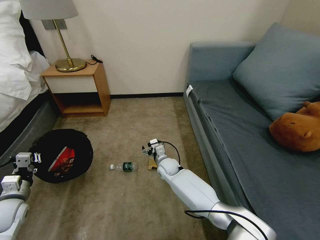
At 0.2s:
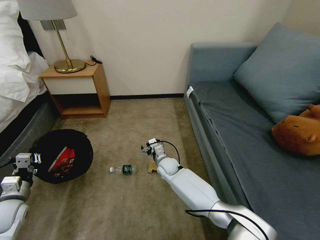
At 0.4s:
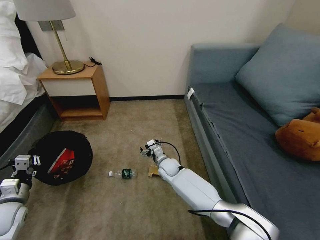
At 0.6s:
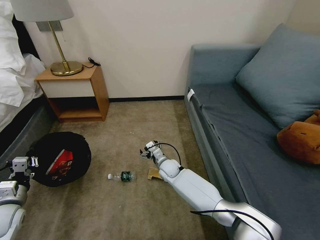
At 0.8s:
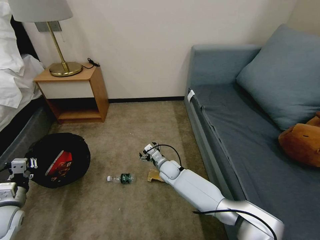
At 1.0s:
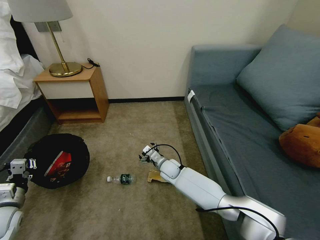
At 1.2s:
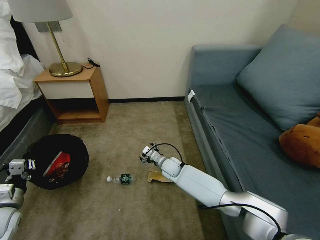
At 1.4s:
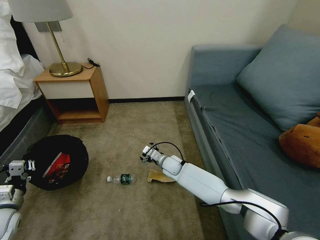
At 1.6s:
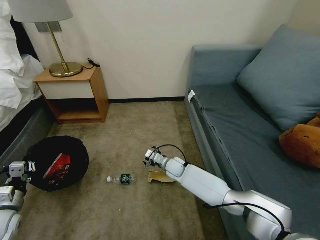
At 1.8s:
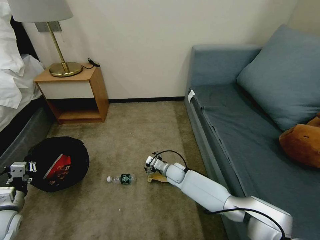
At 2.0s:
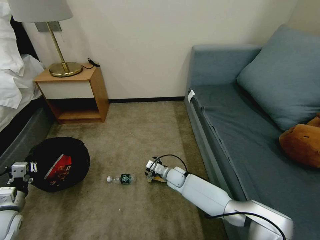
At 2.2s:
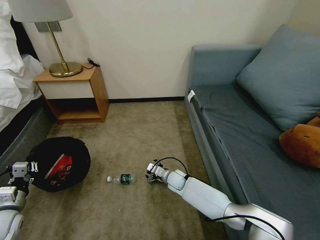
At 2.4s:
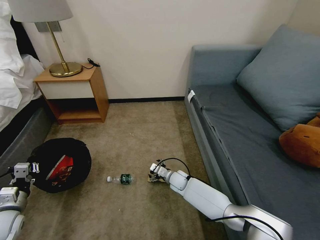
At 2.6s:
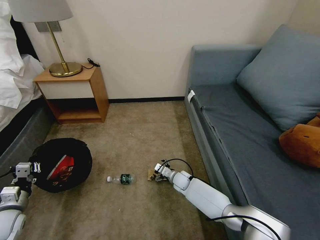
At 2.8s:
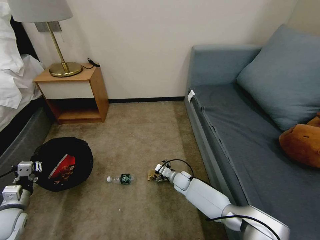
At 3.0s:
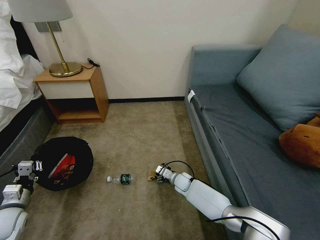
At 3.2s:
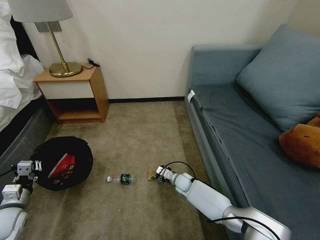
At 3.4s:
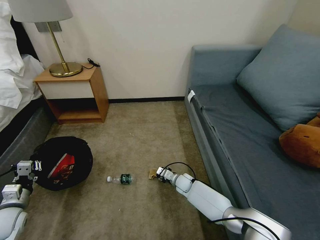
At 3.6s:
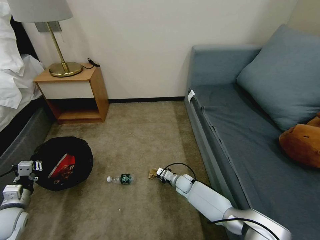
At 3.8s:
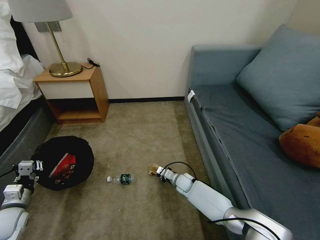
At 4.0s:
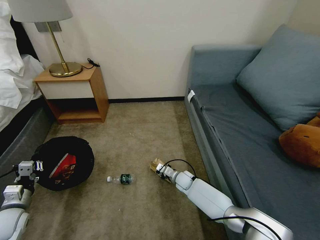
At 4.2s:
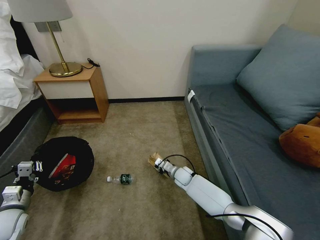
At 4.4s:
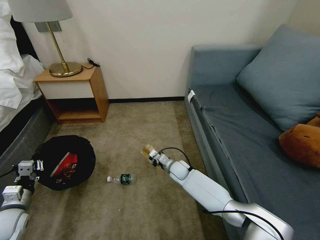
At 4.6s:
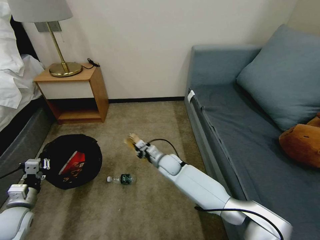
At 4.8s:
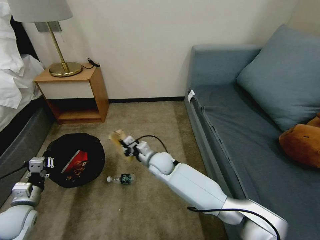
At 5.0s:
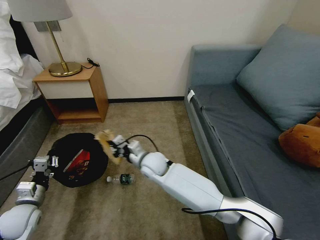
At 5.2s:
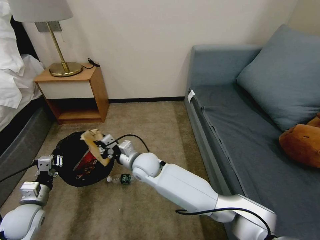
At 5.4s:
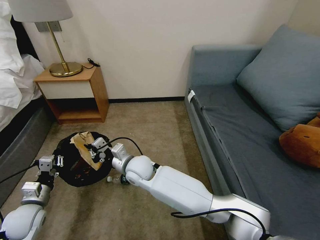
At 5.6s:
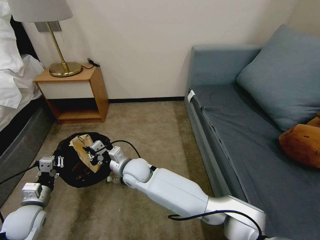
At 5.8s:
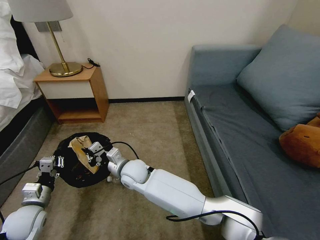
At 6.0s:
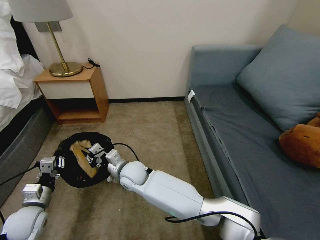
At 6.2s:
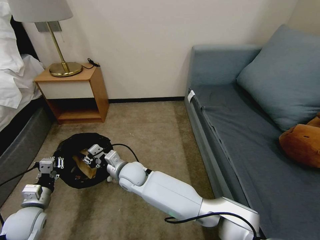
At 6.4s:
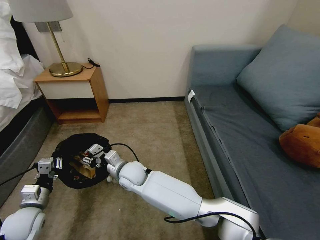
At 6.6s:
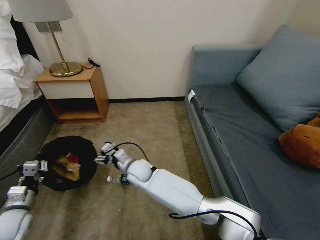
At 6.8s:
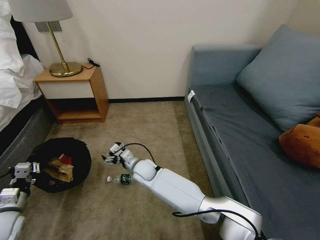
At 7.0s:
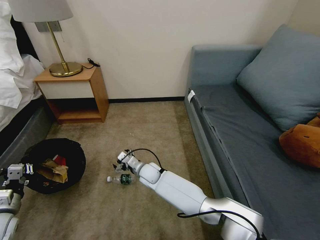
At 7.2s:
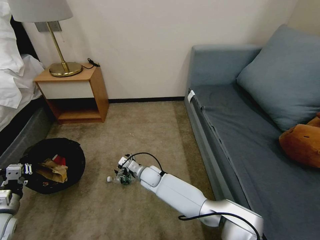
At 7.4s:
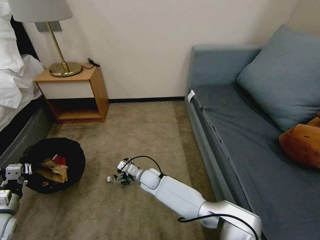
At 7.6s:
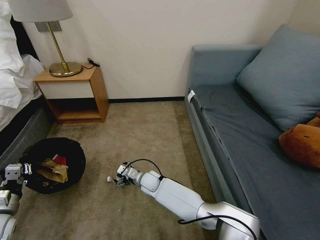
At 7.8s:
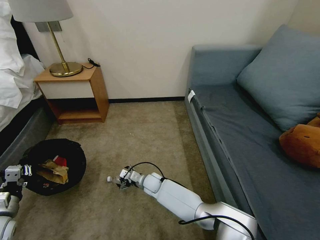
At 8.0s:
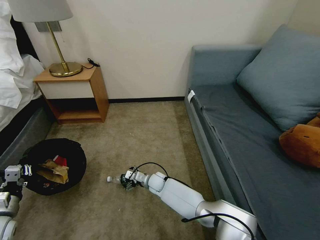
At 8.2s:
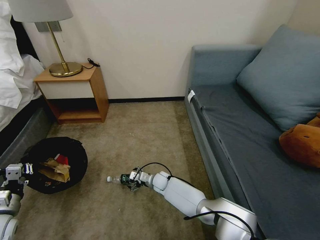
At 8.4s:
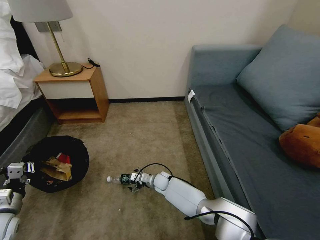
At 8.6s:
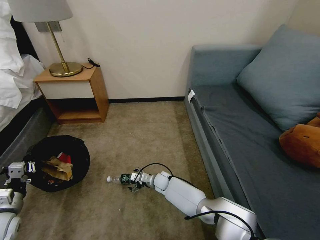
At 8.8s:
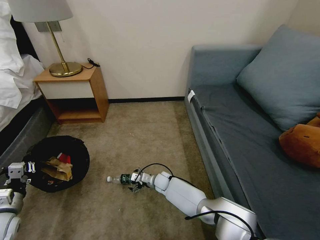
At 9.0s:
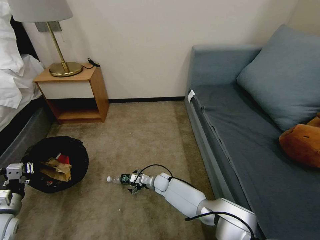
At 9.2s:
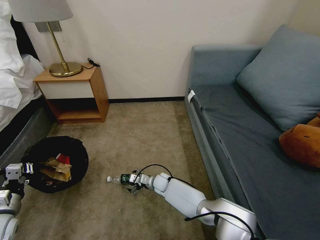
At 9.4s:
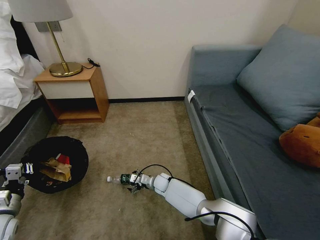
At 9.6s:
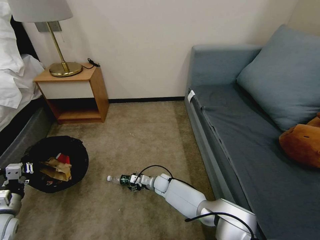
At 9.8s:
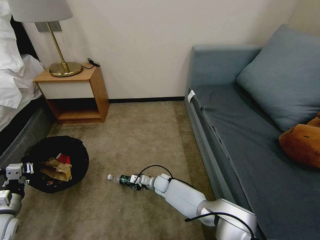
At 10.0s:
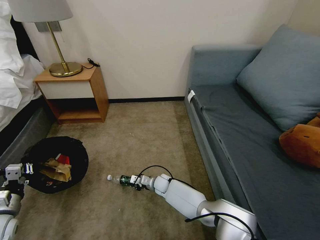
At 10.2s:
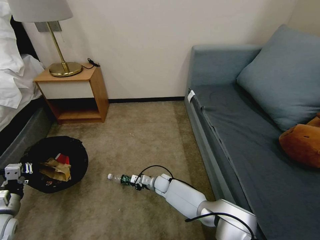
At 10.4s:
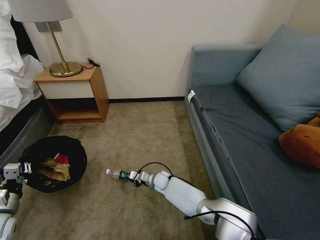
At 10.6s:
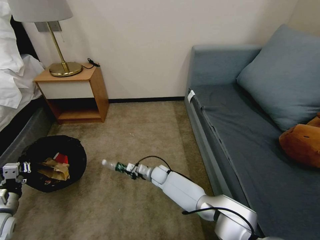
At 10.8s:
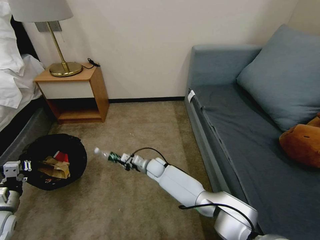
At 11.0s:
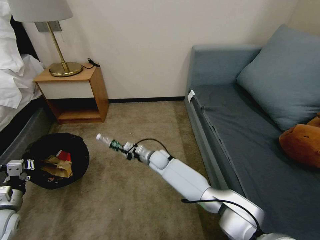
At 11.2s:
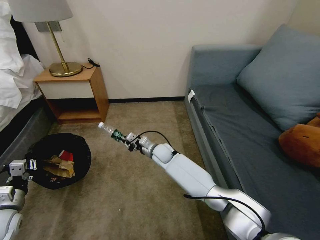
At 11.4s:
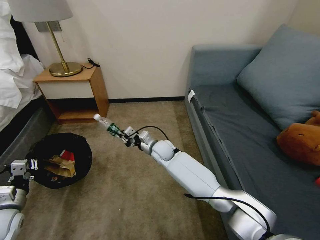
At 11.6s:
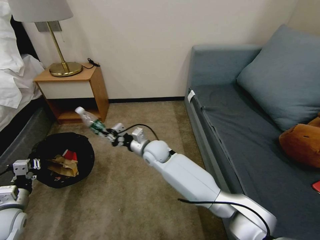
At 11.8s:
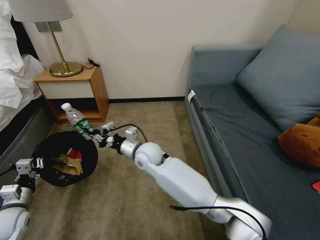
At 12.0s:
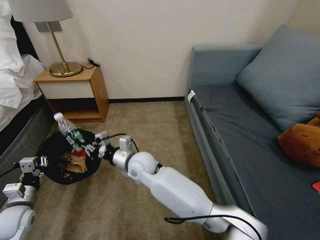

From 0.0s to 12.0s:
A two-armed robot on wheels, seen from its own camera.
Task of the whole recording: Pick up the trash bin, then pick up the garbage on the floor and place it into the trash bin.
From 1.6s to 3.0s: The right gripper goes roughly 10 cm downward.
From 3.0s to 4.4s: The right gripper travels upward by approximately 5 cm, and closes its fingers.
From 4.4s to 6.0s: The right gripper is displaced to the left, upward and backward by about 25 cm. Meanwhile the left gripper moves to the right, approximately 5 cm.
From 6.0s to 7.6s: The right gripper shifts about 15 cm downward and to the right, and opens its fingers. The left gripper travels to the left by some 10 cm.
From 7.6s to 9.0s: The right gripper shifts approximately 10 cm to the right and downward.
From 9.0s to 10.4s: The right gripper closes its fingers.
From 10.4s to 12.0s: The right gripper moves upward, approximately 25 cm.

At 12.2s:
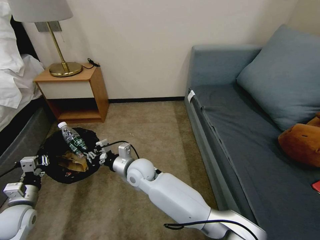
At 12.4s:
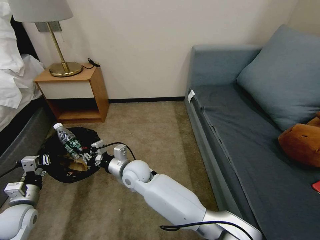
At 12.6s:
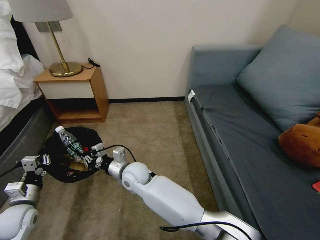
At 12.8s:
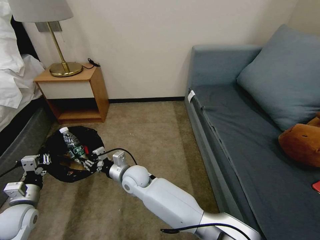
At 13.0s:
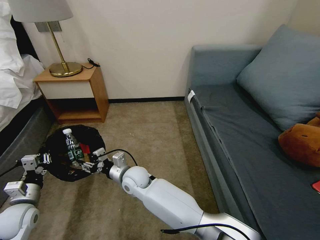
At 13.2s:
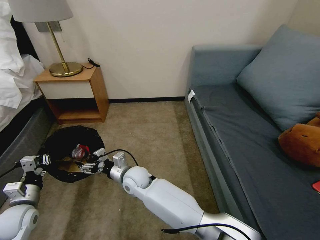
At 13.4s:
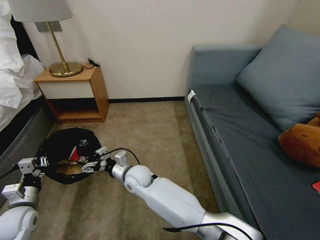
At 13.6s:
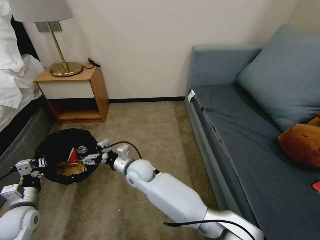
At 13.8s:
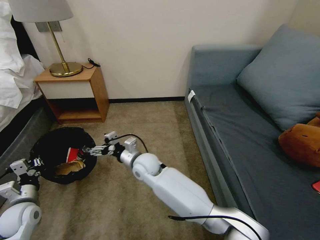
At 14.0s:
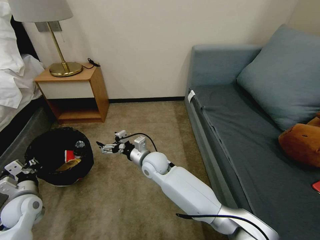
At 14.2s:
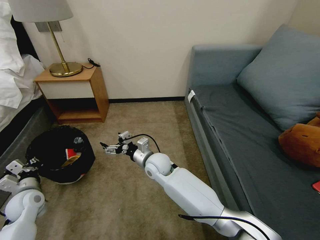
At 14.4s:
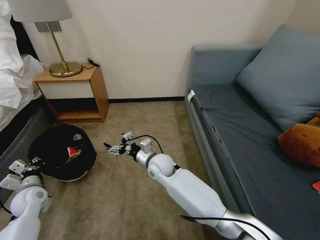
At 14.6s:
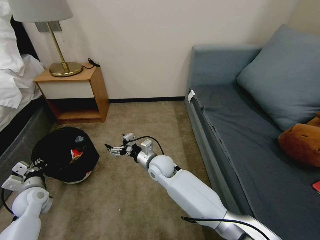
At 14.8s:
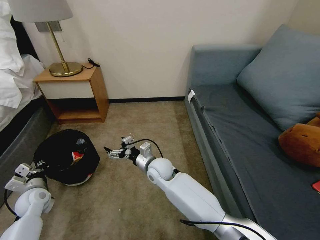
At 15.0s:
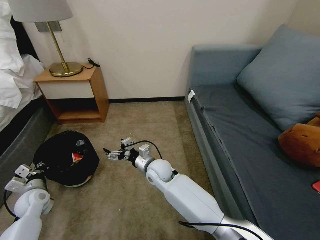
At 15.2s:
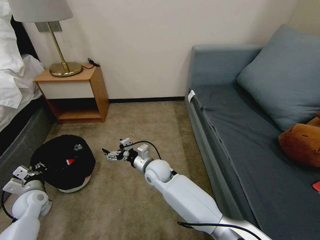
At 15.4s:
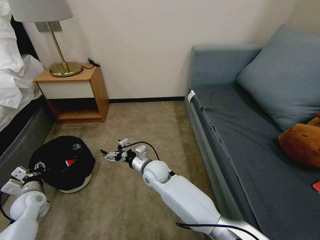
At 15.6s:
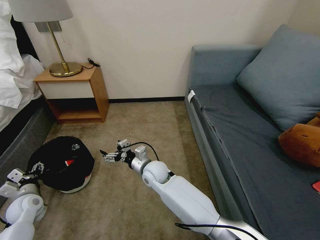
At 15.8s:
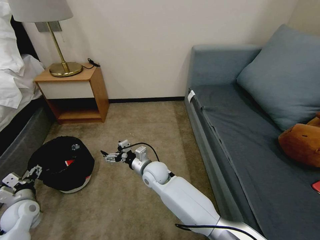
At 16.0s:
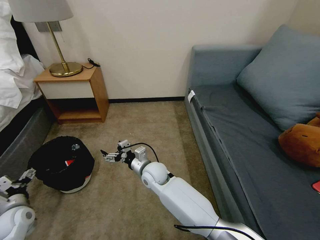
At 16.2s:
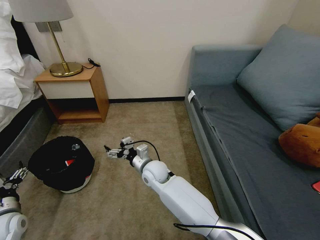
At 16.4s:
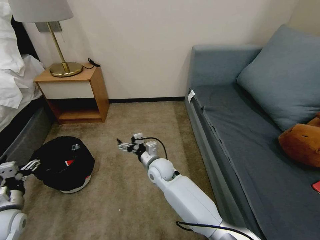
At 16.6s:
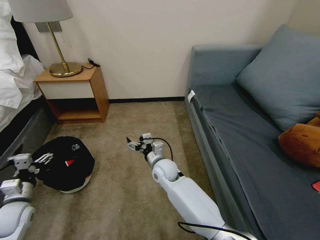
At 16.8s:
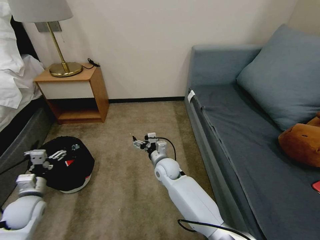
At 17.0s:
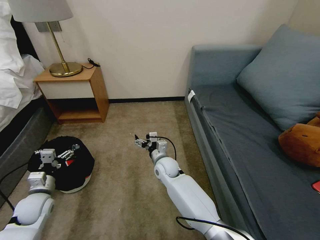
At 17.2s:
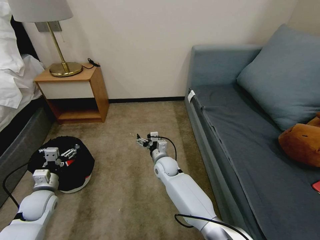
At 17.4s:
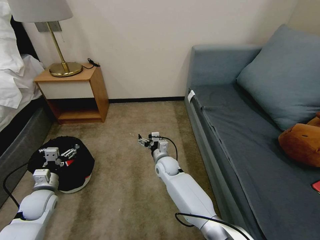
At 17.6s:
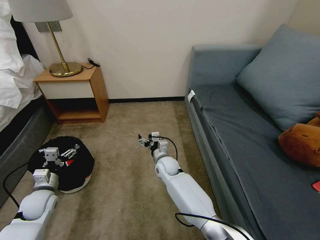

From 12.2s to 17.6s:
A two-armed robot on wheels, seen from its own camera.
Task of the whole recording: Pick up the trash bin, then pick up the garbage on the floor and place it into the trash bin.
From 12.2s to 13.6s: The right gripper opens up.
From 13.6s to 15.0s: The right gripper shifts some 5 cm to the right. The left gripper is displaced forward by some 5 cm.
From 15.0s to 16.2s: The left gripper heads backward, covering about 10 cm, and opens its fingers.
From 16.2s to 17.6s: The right gripper goes roughly 5 cm downward and forward; the left gripper heads to the right and forward, covering some 10 cm.

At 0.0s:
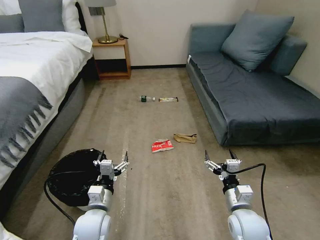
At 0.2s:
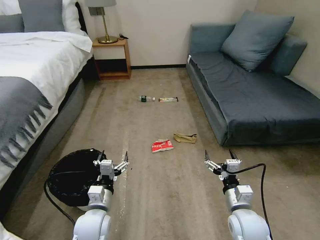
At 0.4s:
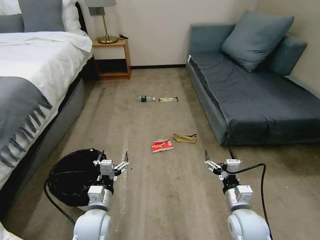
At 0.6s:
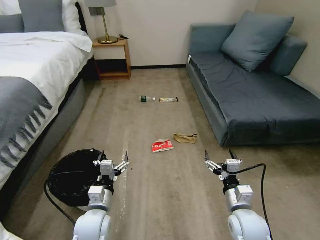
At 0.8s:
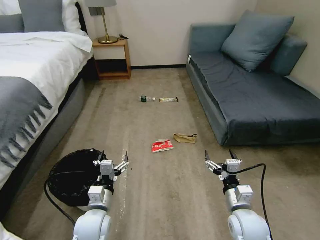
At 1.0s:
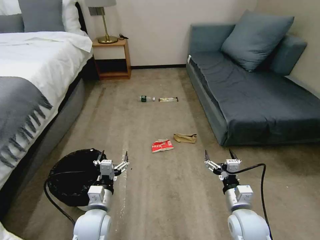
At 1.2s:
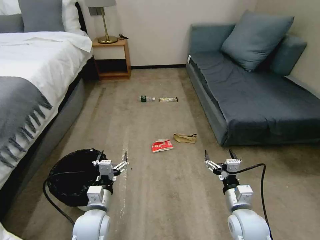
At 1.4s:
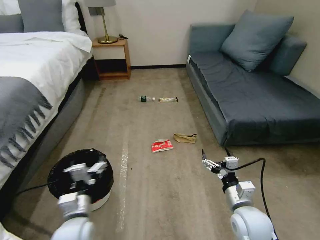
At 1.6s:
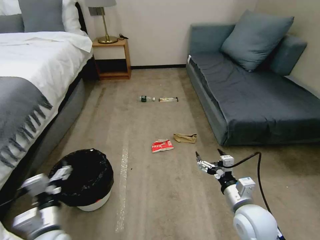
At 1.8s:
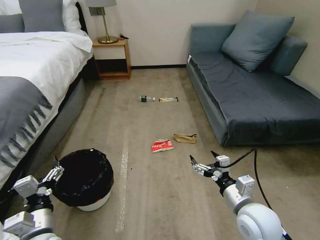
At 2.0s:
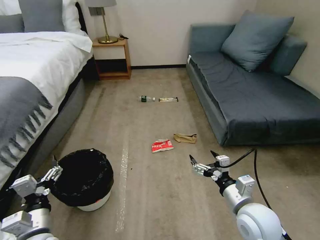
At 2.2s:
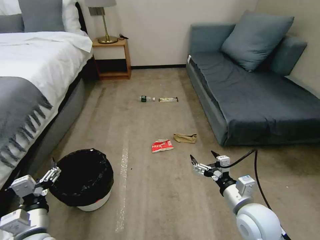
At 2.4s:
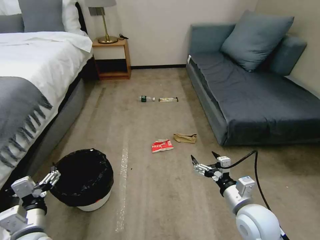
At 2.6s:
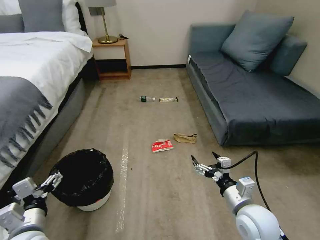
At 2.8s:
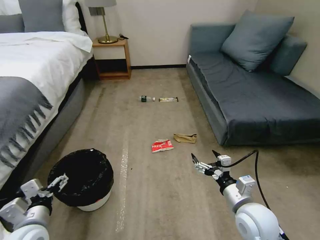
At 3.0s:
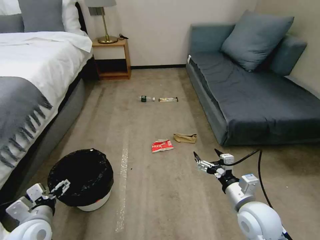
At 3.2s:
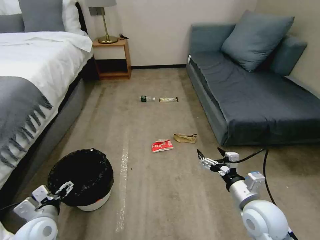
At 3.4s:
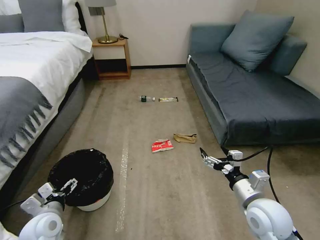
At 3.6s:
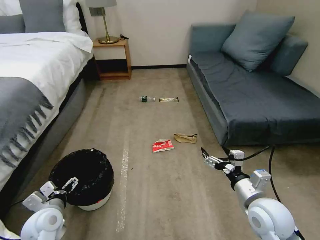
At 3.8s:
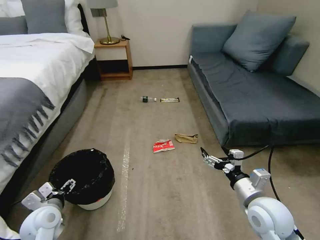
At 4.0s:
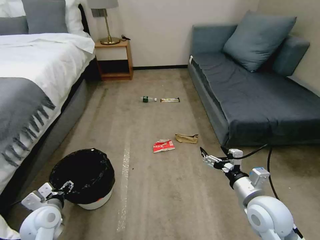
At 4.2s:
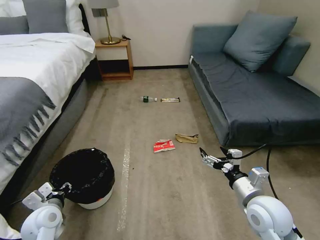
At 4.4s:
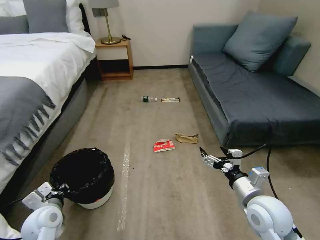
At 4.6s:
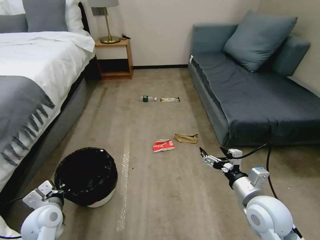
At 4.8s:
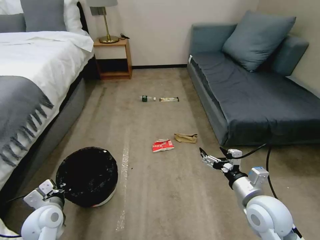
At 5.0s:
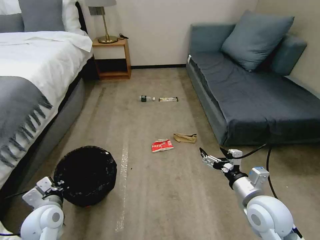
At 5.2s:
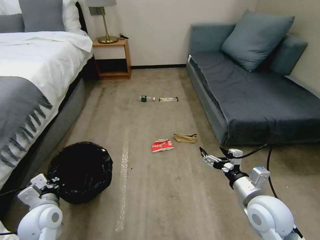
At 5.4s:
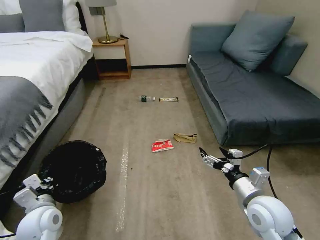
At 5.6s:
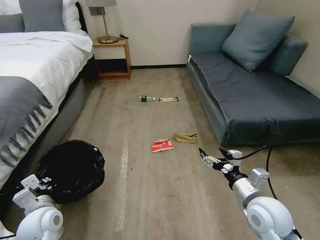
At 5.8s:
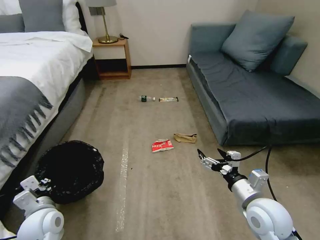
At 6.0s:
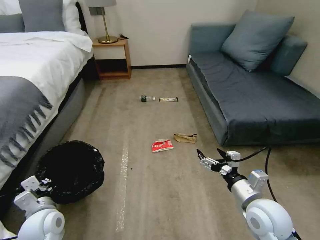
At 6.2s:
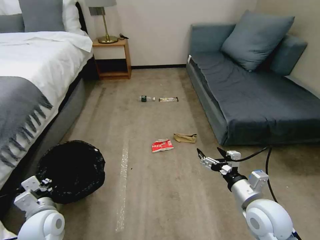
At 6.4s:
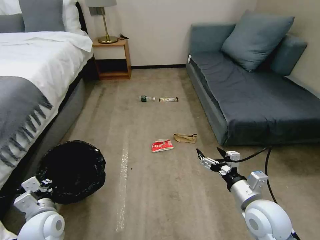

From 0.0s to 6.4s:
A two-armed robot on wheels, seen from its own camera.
Task of the whole recording: Pick up the trash bin, then pick up the garbage on the floor and place it into the trash bin.
From 1.6s to 3.2s: The left gripper heads to the left, covering approximately 5 cm.
From 3.2s to 4.8s: The left gripper closes.
